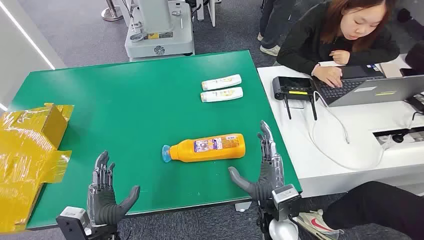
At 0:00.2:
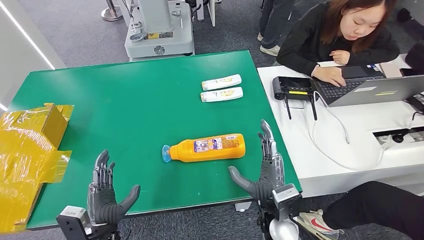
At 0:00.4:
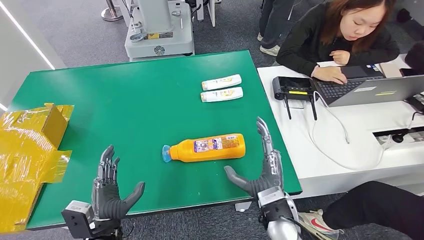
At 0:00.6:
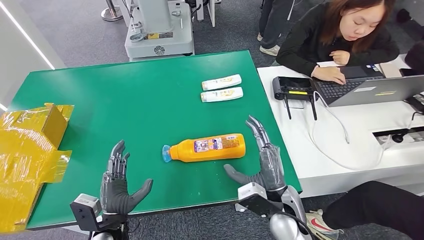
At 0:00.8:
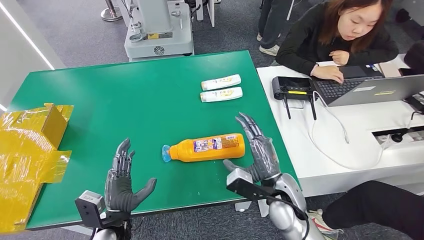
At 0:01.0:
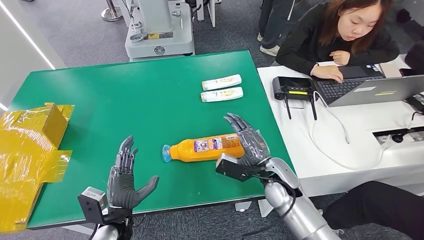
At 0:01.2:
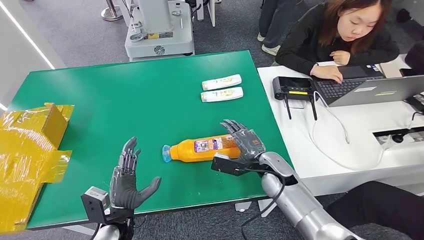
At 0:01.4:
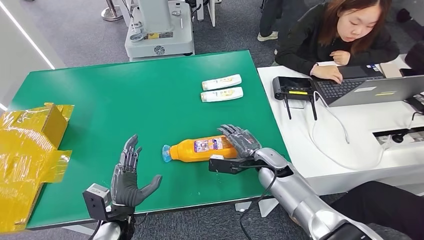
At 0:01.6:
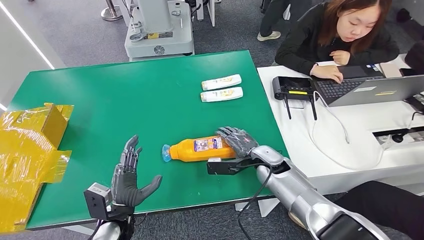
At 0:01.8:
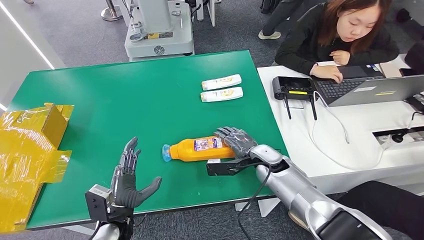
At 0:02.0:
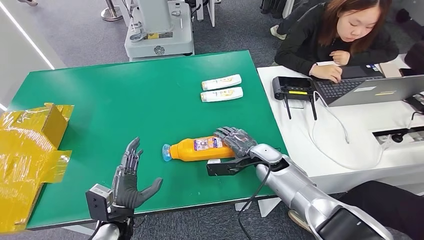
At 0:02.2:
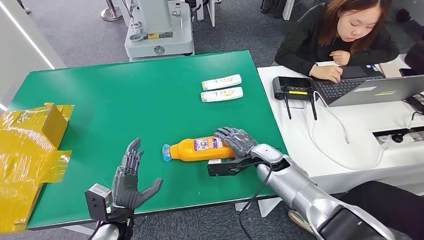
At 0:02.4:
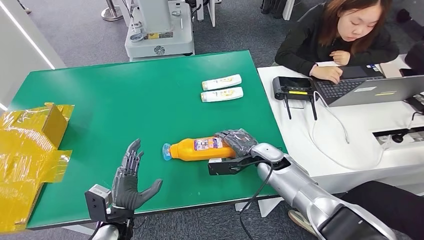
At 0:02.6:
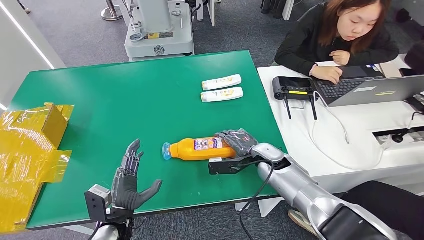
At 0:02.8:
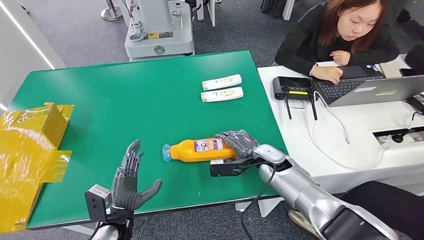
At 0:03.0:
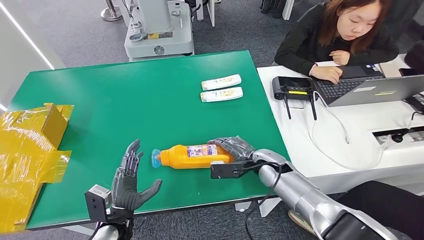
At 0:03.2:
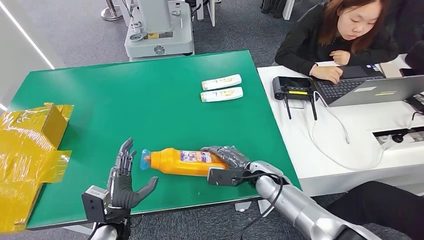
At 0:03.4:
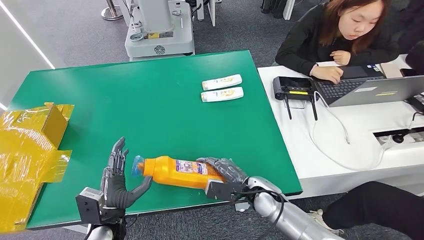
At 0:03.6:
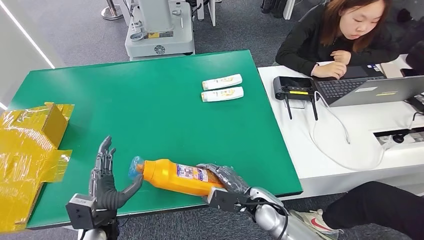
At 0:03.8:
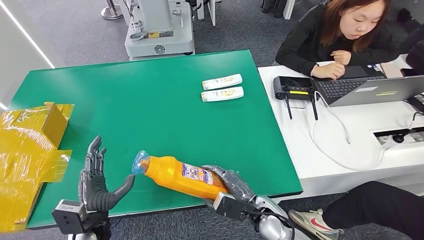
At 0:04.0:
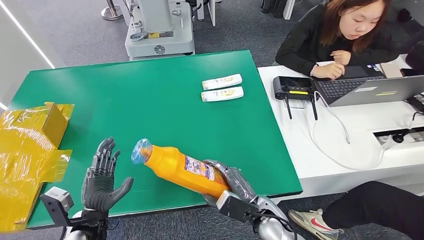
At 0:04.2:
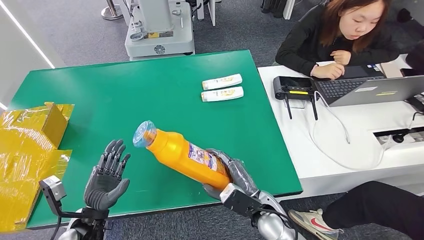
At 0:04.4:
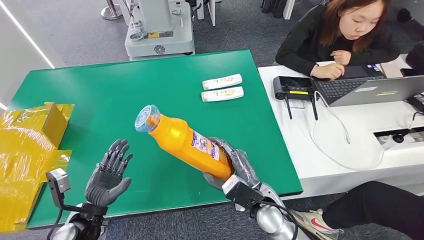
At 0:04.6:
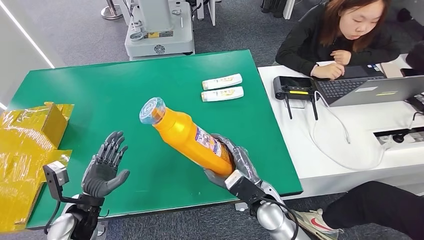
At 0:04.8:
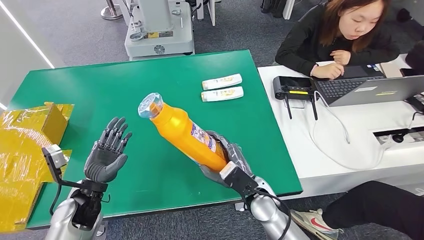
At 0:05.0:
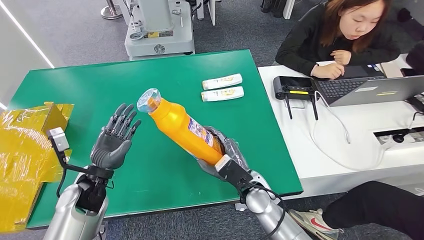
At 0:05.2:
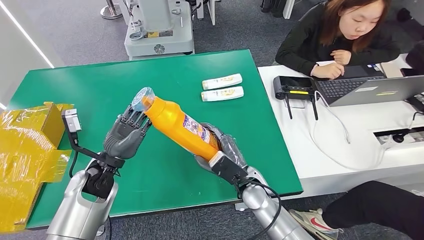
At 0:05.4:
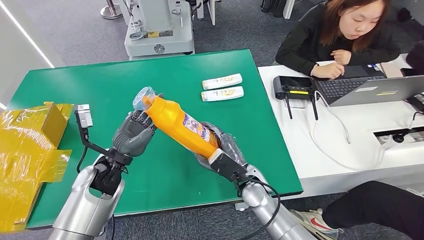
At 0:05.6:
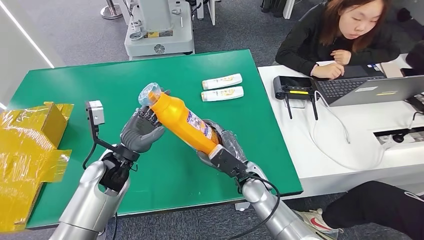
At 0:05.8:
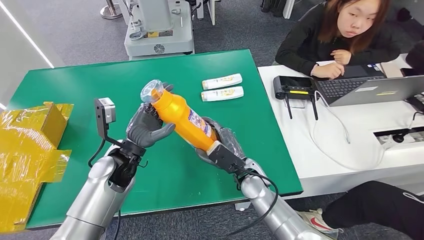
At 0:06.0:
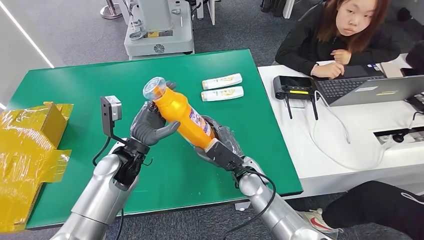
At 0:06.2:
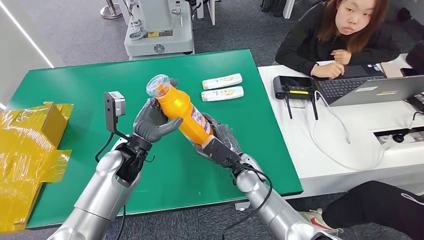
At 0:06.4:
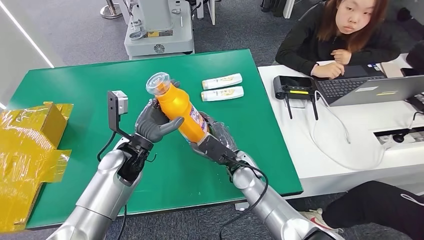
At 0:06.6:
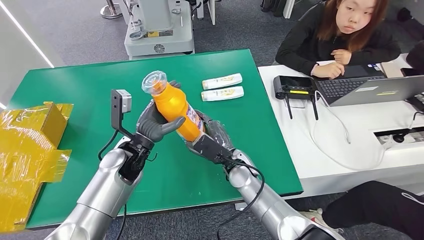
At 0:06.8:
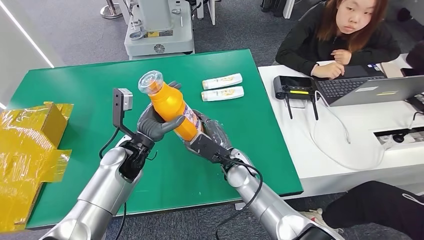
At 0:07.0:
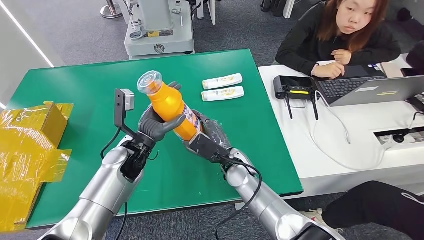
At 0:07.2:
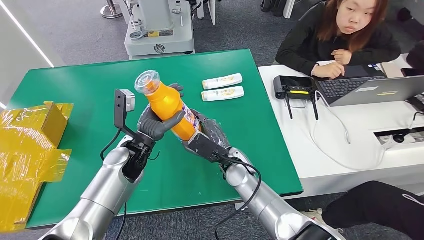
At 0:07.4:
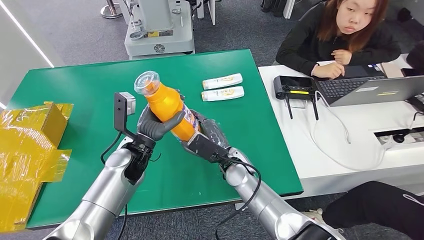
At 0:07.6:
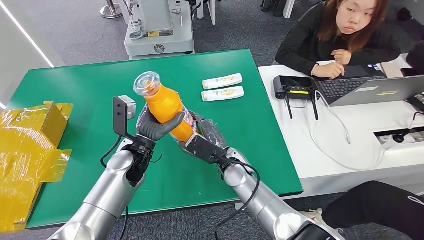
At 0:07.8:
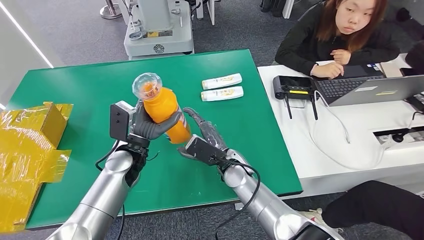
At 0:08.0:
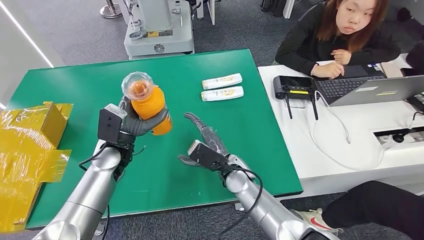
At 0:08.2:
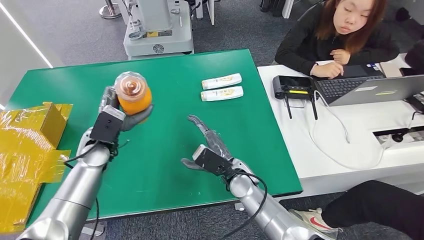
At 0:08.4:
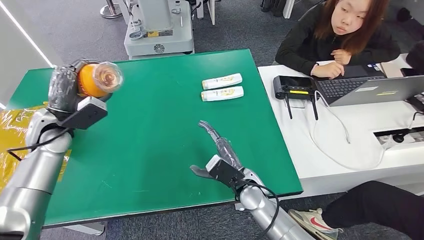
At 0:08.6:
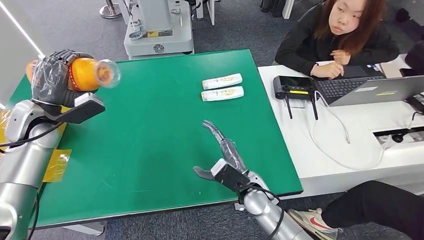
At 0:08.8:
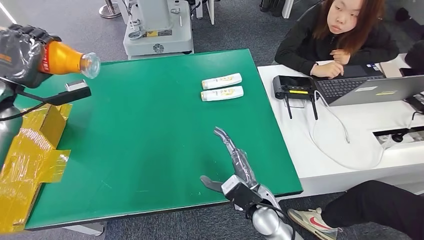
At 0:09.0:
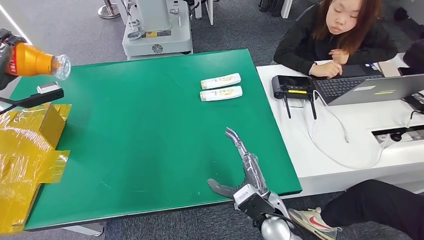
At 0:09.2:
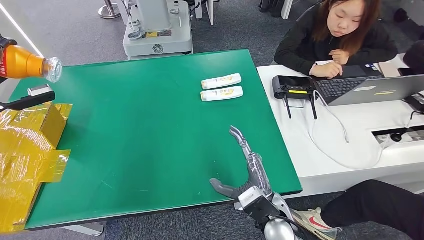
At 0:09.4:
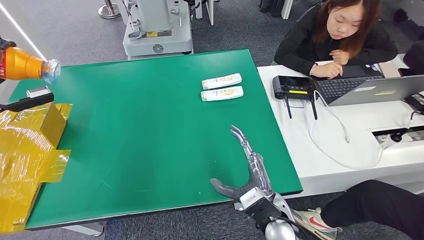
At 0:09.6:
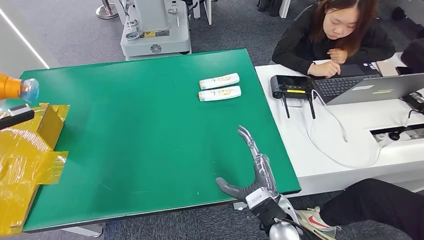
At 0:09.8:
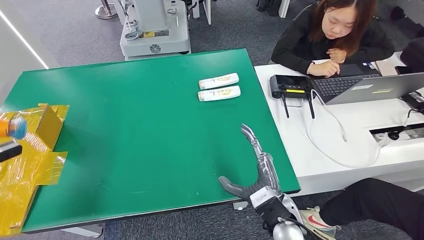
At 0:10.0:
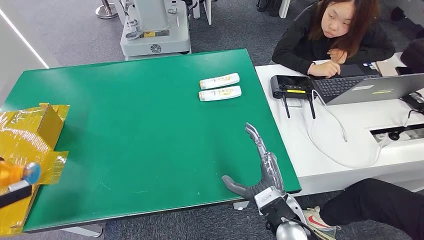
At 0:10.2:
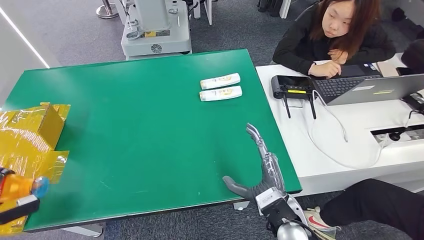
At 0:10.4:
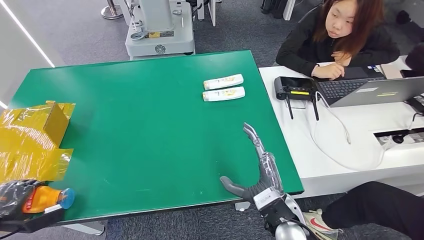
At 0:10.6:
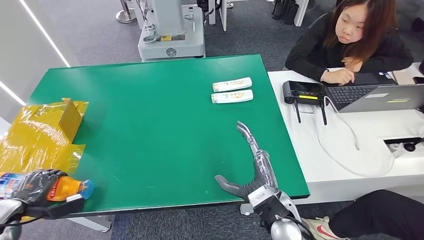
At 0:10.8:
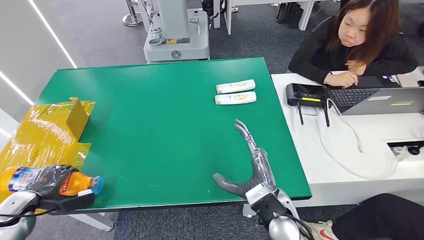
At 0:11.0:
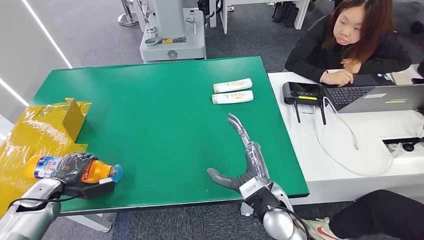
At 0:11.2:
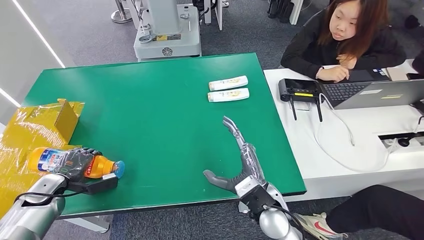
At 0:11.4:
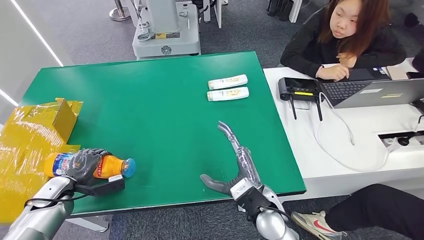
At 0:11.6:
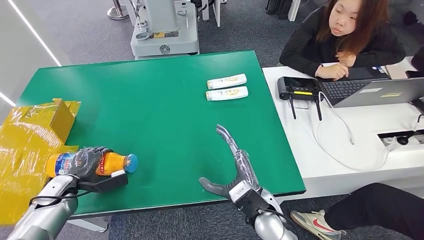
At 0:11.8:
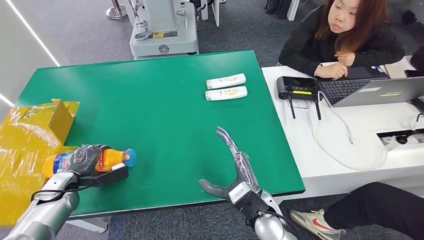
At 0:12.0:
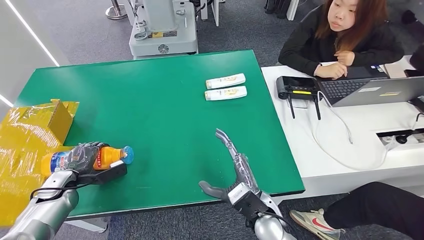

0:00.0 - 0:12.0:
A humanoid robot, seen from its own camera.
Step, 0:00.0 - 0:04.6: Pick up the bottle from the table.
0:01.6 - 0:03.0: The hands stay close to where they were, moving slightly.
0:03.0 - 0:04.4: The left hand moves to the left, approximately 5 cm; the right hand travels backward and to the left by some 15 cm.
0:04.4 - 0:06.0: The left hand heads to the right, forward and upward, covering about 20 cm. The right hand travels forward by approximately 10 cm.
0:06.0 - 0:07.6: The hands stay close to where they were, moving slightly.

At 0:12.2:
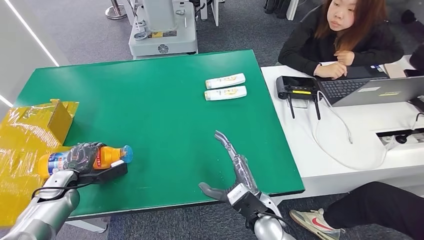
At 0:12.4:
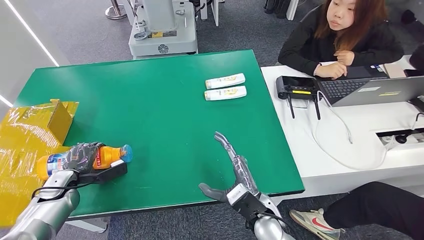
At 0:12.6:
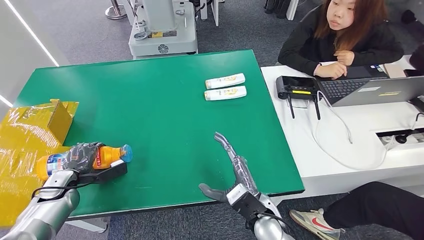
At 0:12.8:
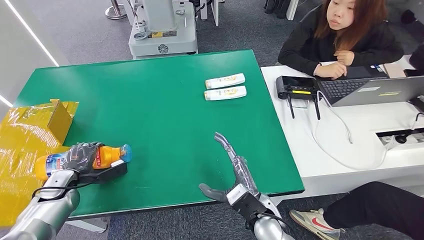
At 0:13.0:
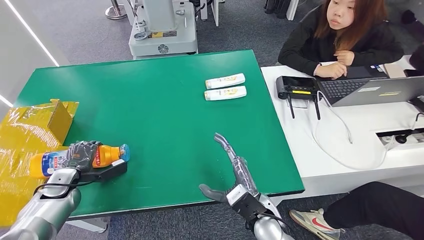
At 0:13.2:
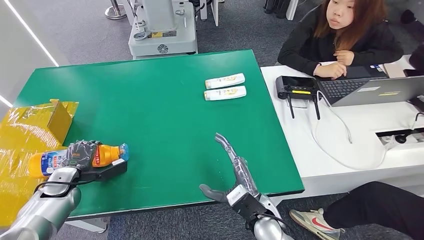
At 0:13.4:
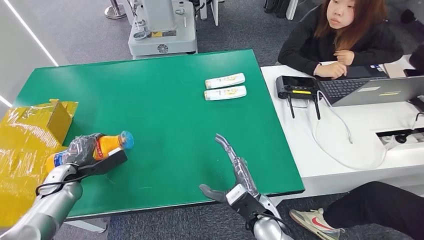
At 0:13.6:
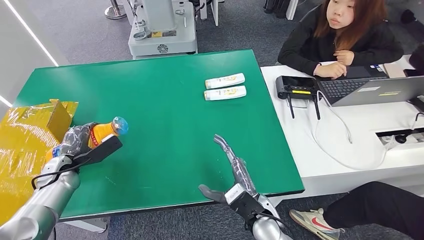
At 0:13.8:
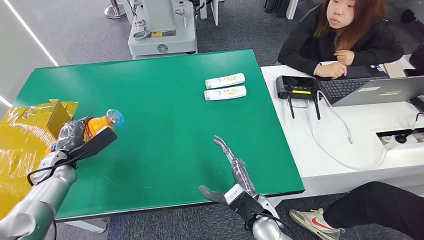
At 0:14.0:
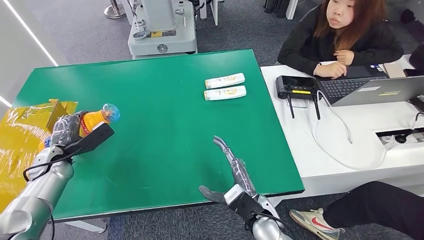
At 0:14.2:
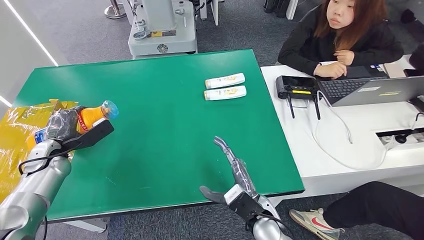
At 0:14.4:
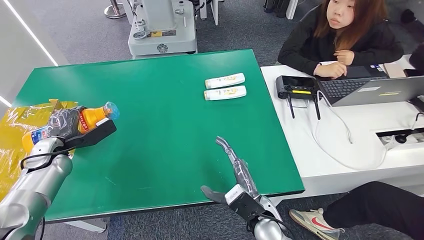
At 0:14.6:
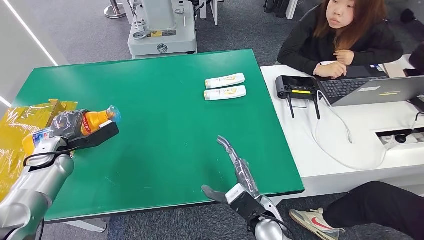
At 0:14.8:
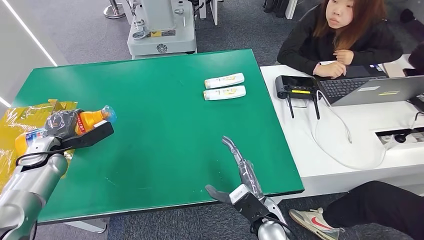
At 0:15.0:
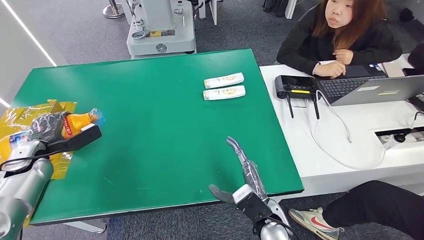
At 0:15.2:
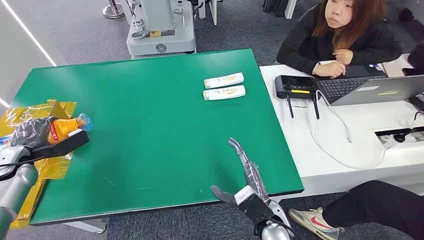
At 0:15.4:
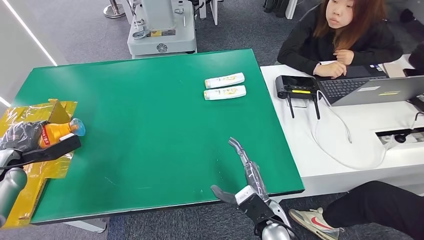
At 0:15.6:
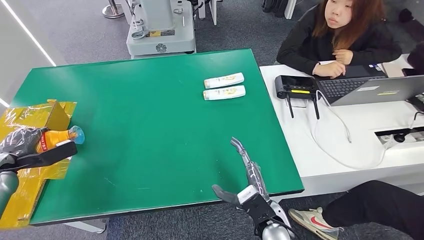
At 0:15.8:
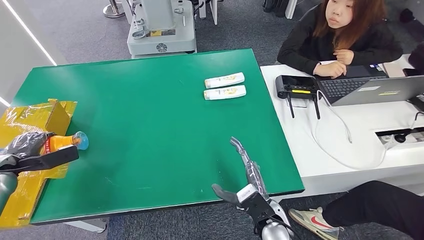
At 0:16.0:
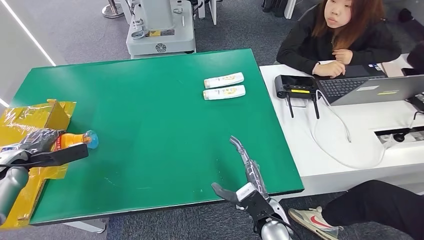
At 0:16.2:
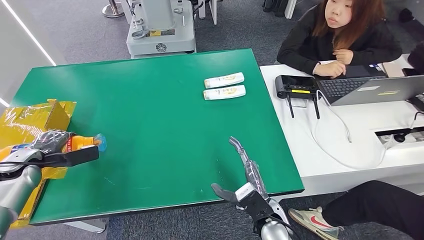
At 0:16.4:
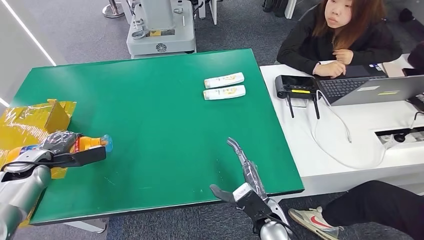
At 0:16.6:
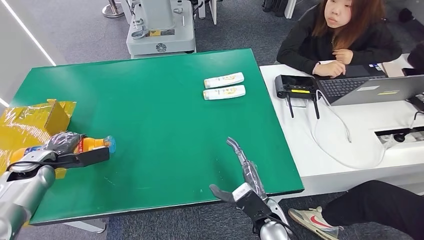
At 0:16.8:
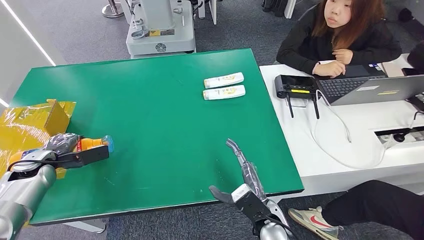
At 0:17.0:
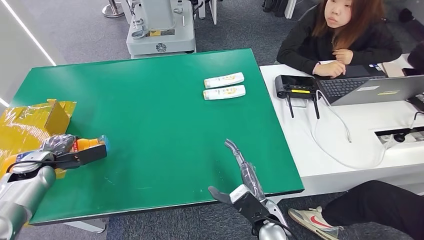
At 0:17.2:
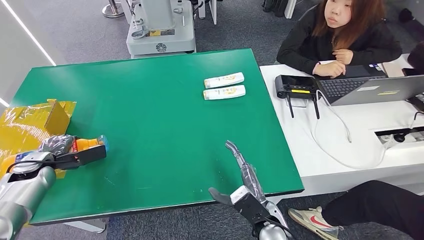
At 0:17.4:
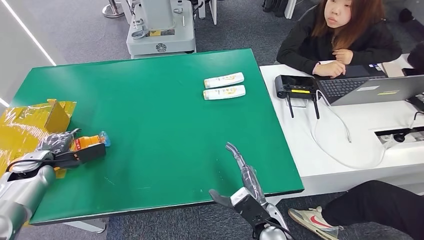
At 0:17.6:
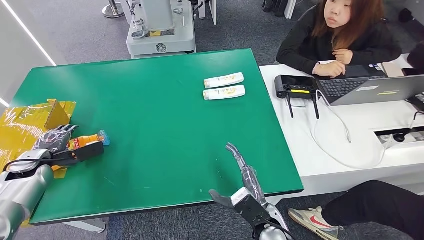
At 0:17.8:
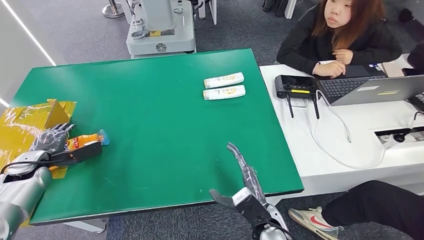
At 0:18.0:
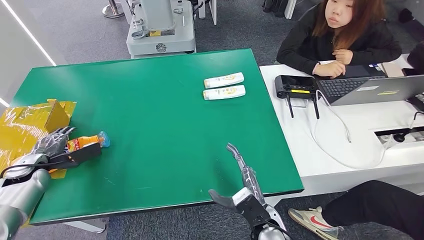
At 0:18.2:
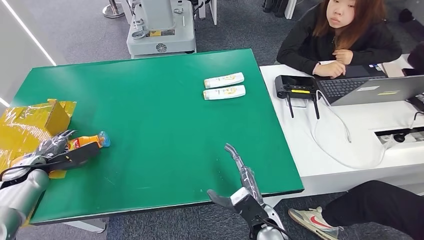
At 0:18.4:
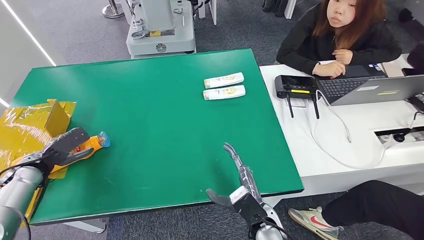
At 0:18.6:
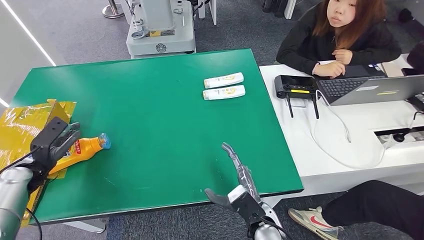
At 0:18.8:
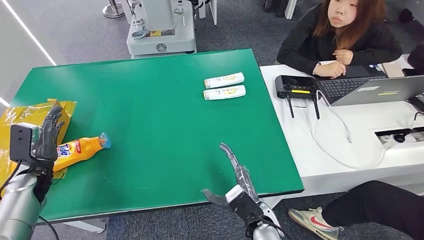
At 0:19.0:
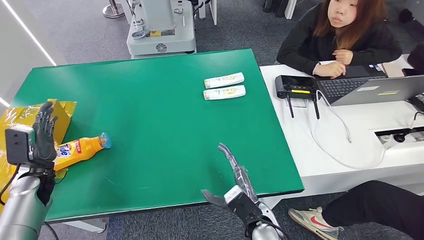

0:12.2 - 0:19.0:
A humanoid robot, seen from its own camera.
0:13.6 - 0:15.0: The left hand is displaced upward by some 5 cm.
0:16.2 - 0:17.6: The hands make only small movements.
